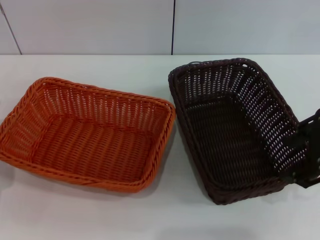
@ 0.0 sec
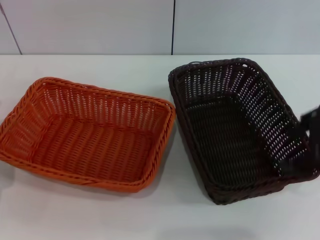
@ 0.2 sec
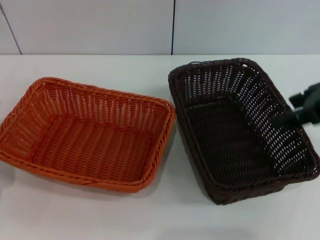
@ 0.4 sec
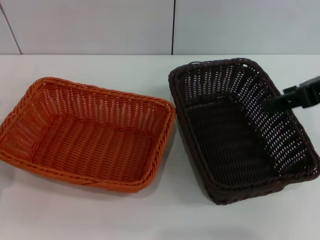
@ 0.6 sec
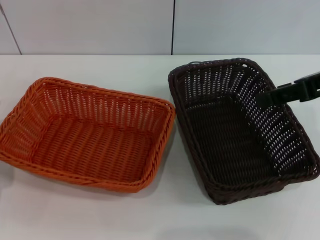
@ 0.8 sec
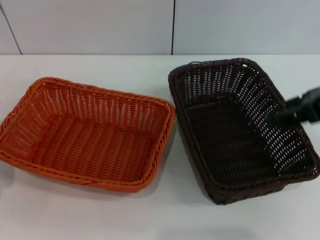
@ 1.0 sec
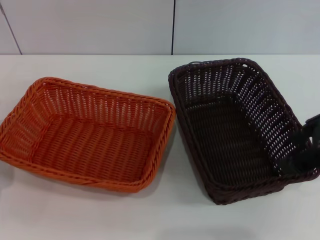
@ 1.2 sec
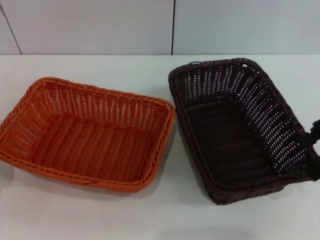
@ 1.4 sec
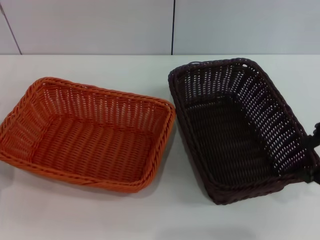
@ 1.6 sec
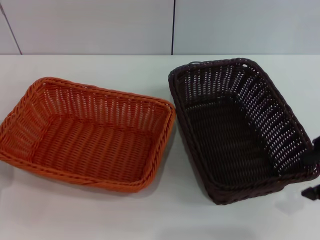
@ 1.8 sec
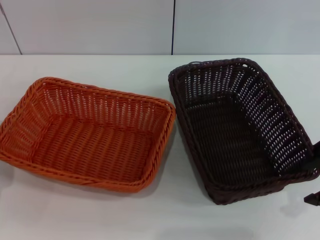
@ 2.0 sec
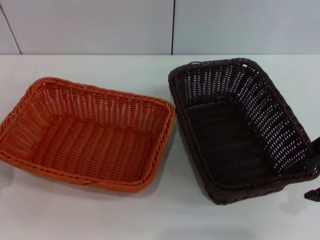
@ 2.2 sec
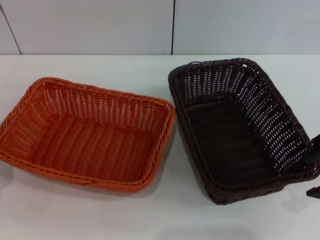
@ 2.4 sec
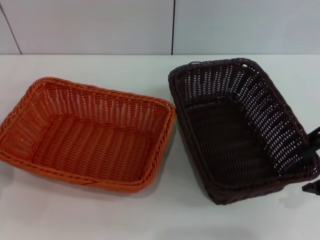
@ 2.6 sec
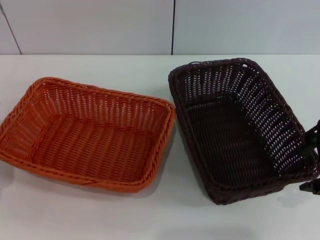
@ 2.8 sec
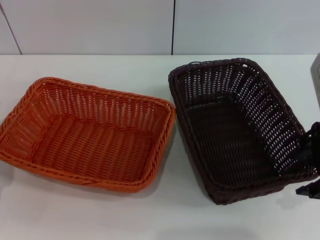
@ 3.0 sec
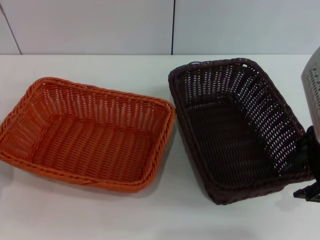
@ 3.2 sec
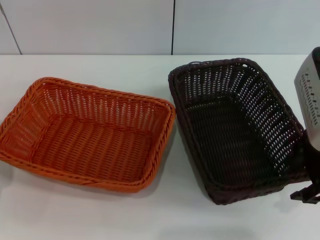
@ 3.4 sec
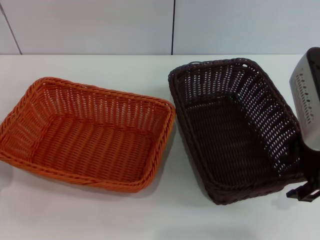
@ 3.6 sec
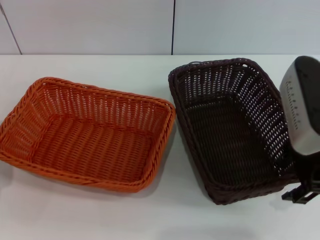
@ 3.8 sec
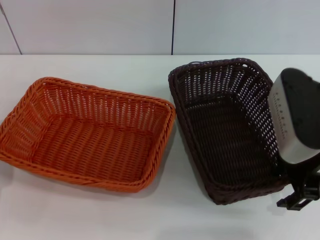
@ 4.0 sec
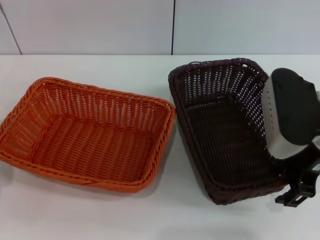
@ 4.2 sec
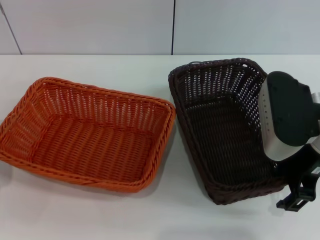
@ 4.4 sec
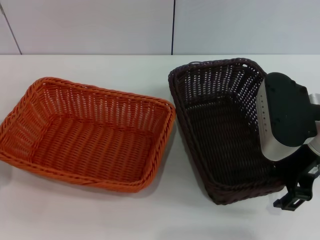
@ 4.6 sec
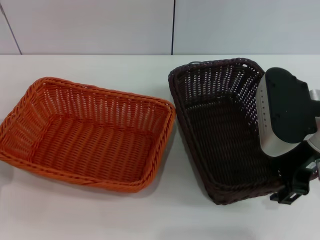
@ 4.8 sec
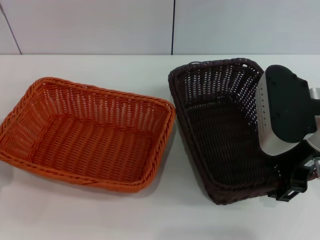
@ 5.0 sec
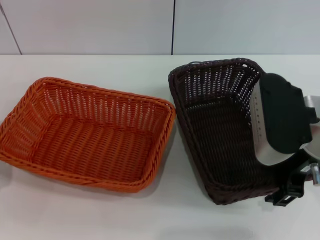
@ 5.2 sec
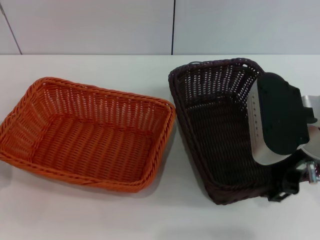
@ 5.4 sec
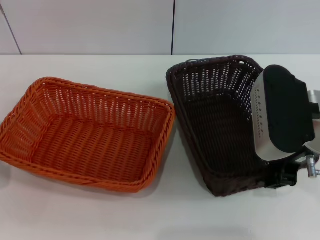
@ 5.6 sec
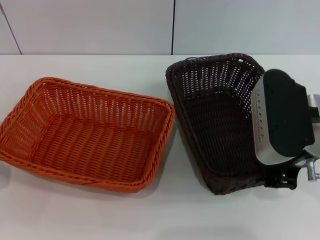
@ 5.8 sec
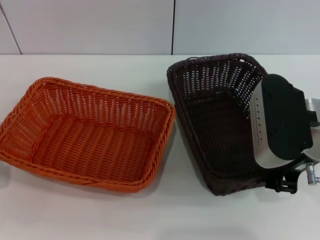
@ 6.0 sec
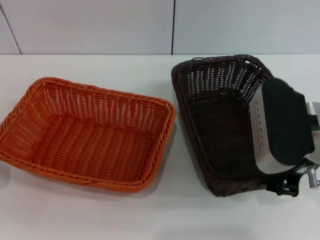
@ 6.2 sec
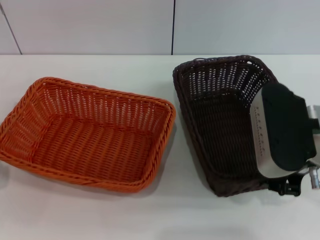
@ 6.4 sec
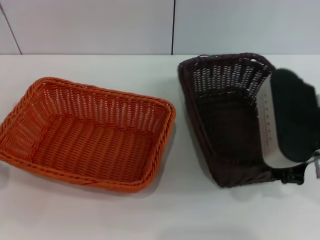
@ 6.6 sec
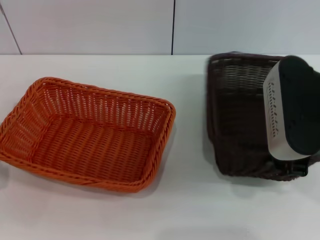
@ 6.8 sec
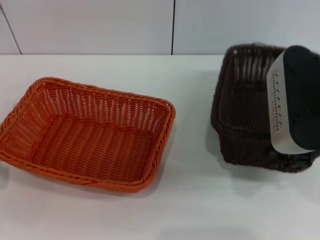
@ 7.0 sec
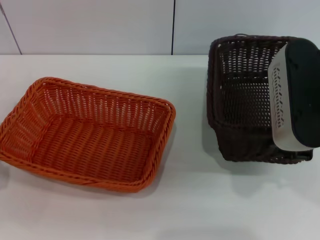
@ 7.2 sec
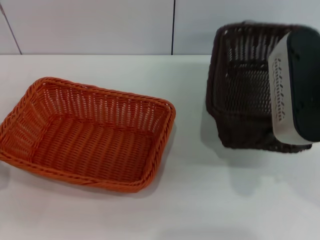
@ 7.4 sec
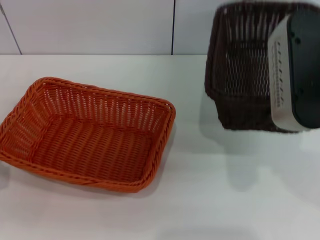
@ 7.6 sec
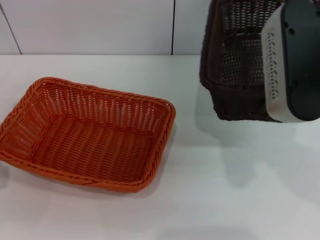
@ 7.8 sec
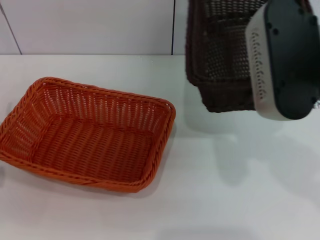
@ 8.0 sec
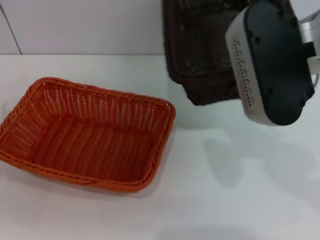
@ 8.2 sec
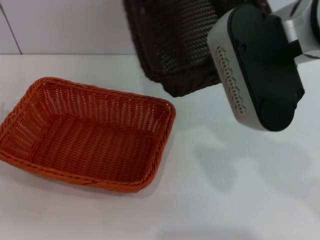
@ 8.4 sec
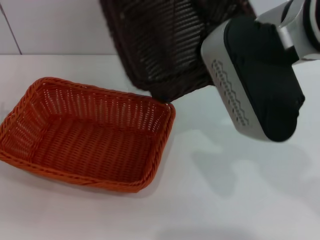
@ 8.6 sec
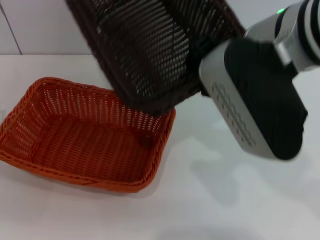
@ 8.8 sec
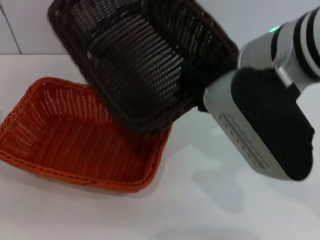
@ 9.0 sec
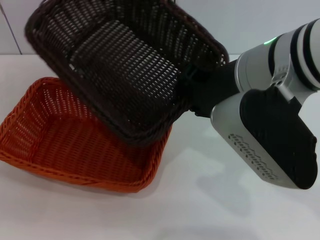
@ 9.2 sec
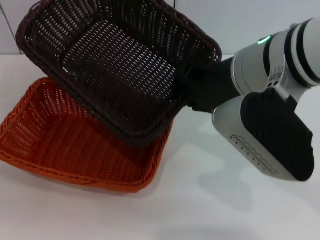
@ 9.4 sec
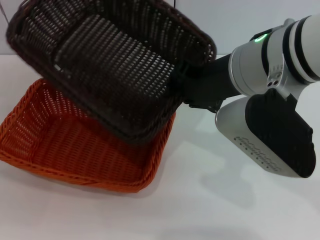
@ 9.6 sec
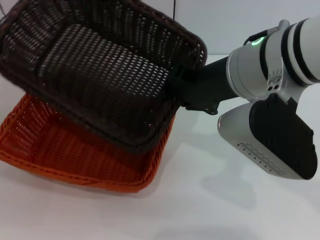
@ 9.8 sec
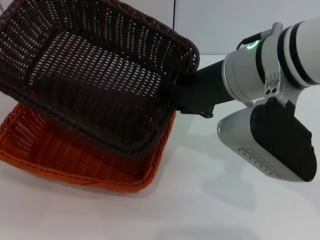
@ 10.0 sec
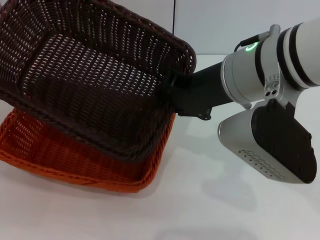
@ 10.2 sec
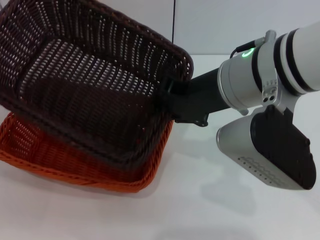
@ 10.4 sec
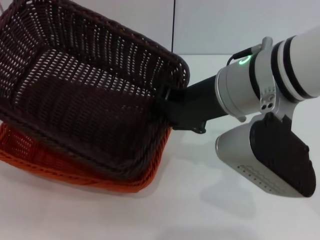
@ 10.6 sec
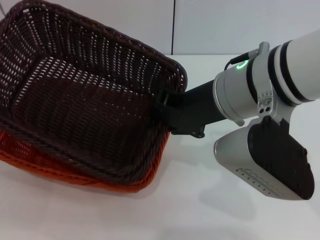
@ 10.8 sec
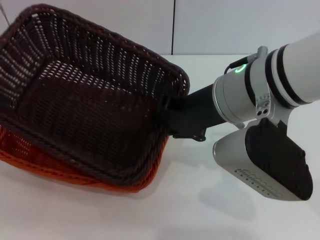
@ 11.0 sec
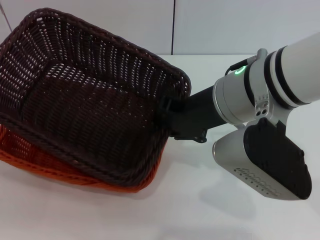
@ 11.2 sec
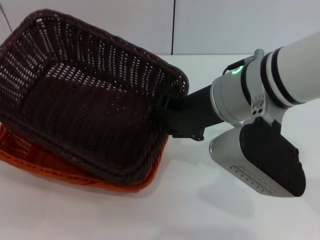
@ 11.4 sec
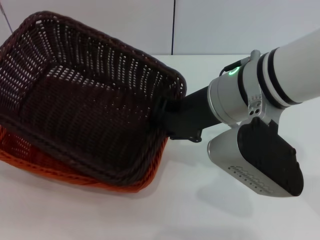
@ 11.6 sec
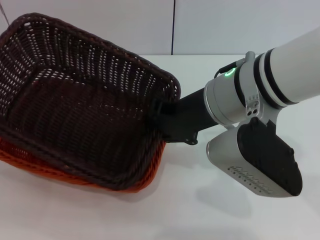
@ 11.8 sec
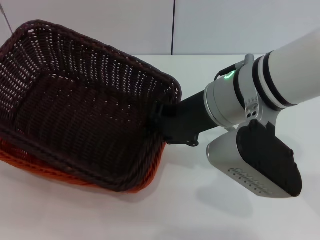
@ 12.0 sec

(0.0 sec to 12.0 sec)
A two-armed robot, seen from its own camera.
Step, 0.0 sec - 7.0 sec: Pick up the dark basket with the right gripper.
3.0 sec - 4.4 sec: The right gripper shifts some 5 cm downward.
4.4 sec - 6.0 sec: The right gripper closes up.
6.0 sec - 7.6 sec: The right gripper heads upward, covering some 10 cm.
7.6 sec - 9.0 sec: The right gripper shifts approximately 5 cm to the left.

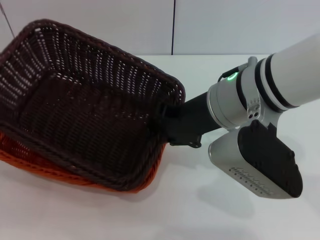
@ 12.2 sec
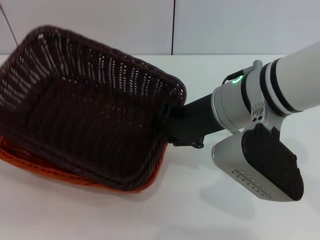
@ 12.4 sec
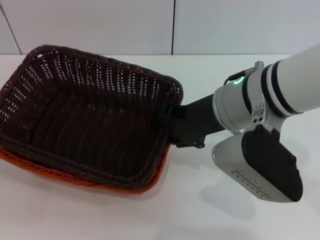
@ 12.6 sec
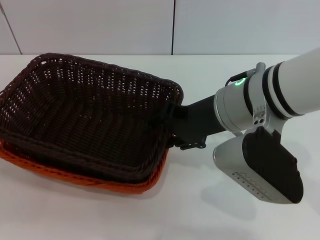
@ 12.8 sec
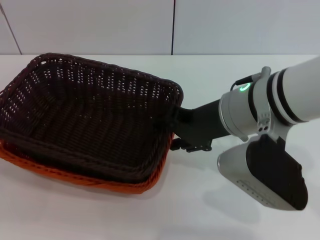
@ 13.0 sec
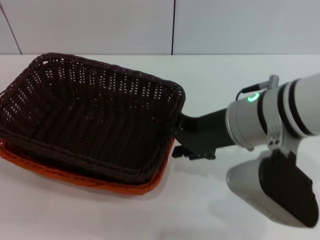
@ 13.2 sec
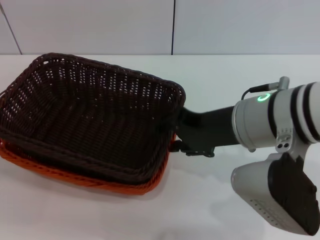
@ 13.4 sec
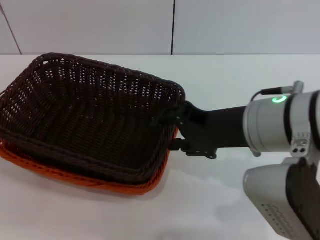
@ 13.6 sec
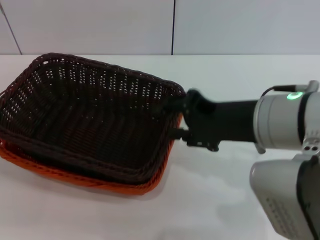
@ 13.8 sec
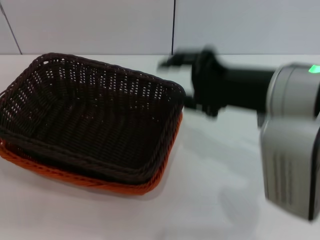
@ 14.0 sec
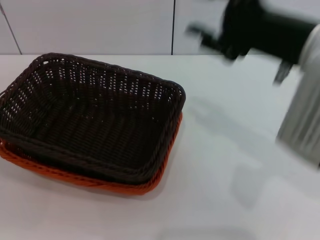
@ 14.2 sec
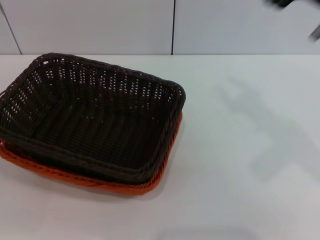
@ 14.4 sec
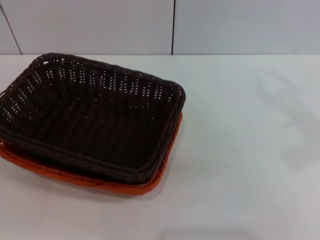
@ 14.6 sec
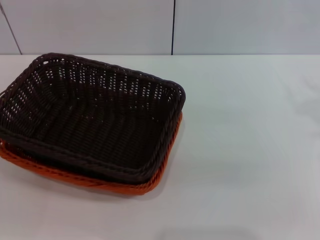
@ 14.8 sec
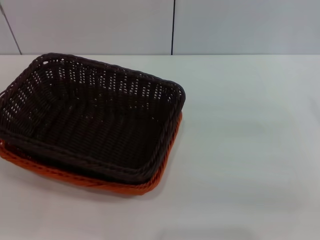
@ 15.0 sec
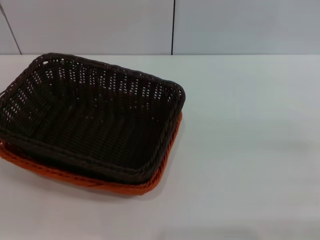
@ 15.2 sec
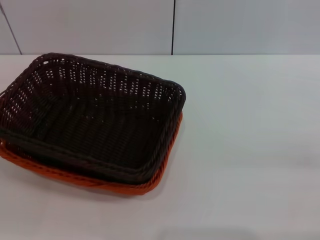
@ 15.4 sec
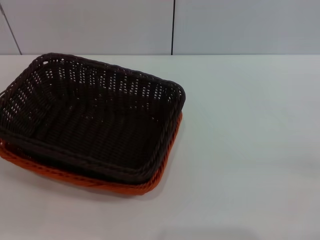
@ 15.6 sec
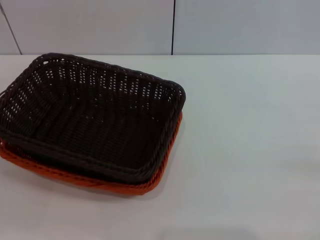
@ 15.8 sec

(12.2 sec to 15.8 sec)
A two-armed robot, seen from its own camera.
12.2 sec - 14.0 sec: The right gripper heads to the right, covering about 5 cm, and opens its fingers.
14.0 sec - 15.8 sec: The right gripper is displaced to the right and downward by roughly 30 cm.
